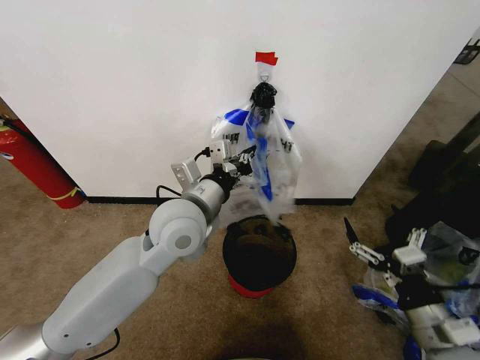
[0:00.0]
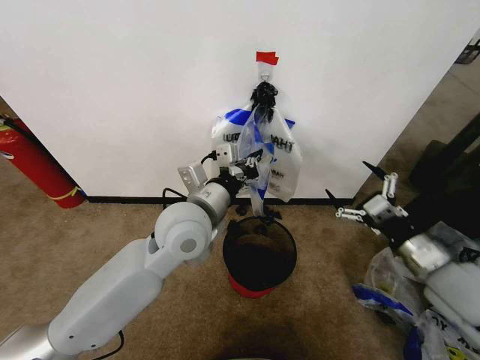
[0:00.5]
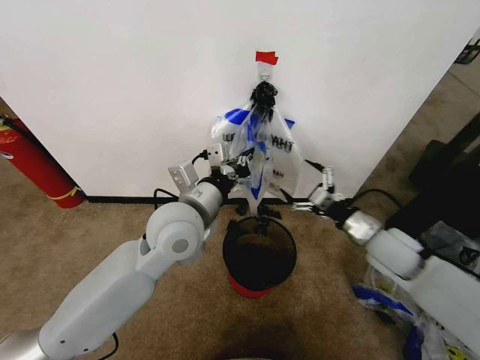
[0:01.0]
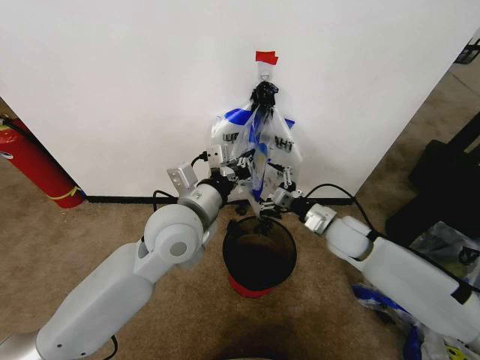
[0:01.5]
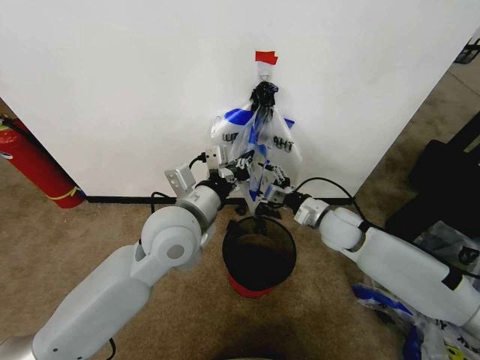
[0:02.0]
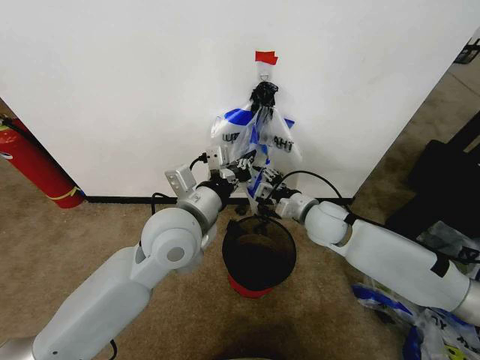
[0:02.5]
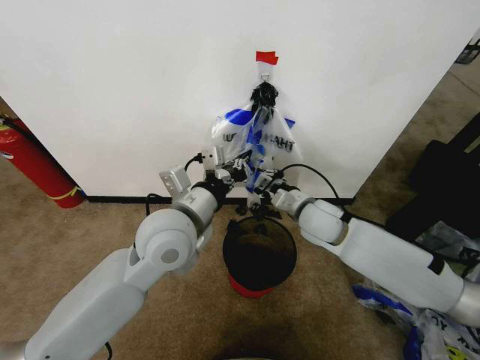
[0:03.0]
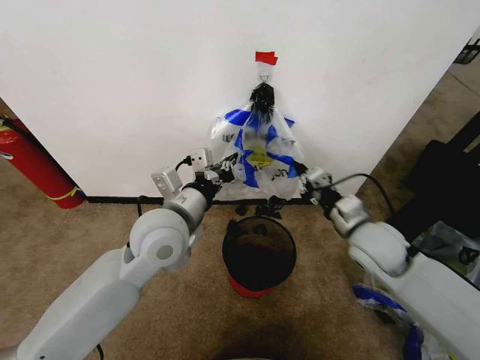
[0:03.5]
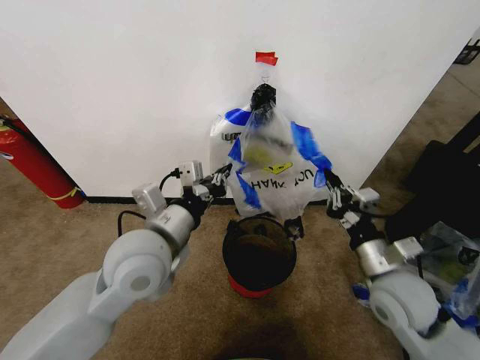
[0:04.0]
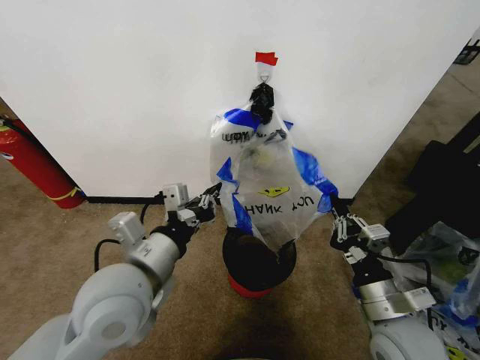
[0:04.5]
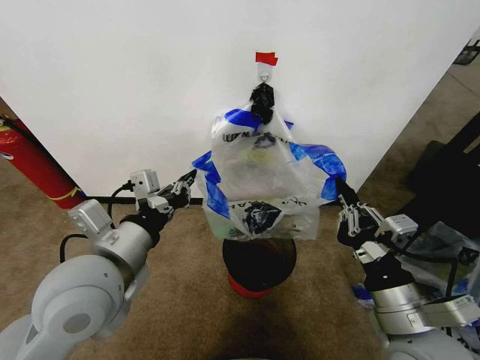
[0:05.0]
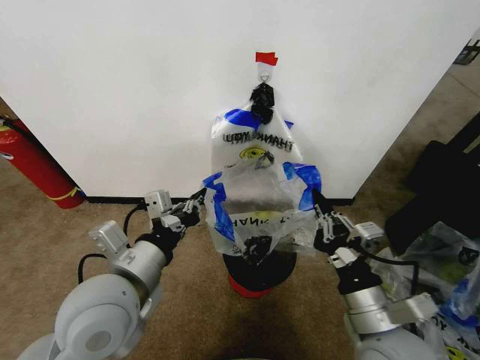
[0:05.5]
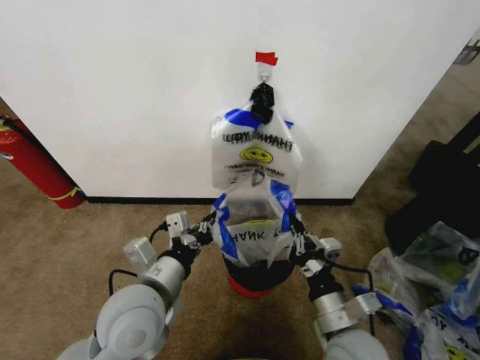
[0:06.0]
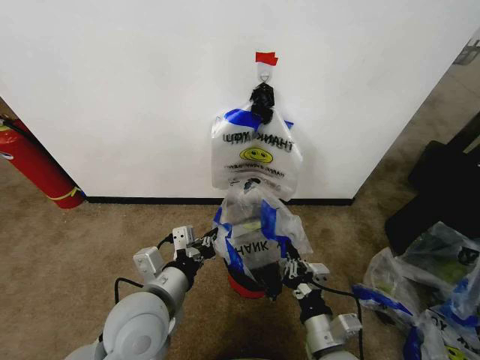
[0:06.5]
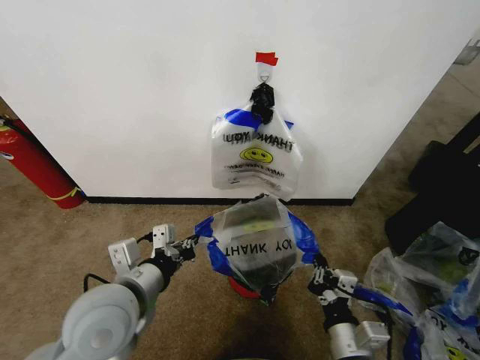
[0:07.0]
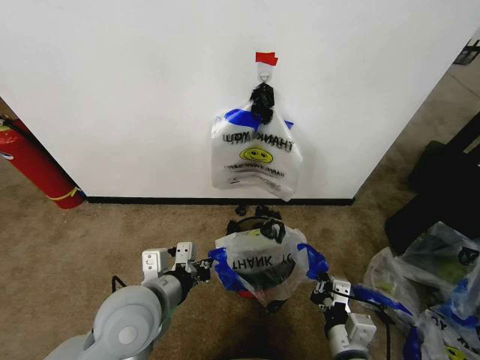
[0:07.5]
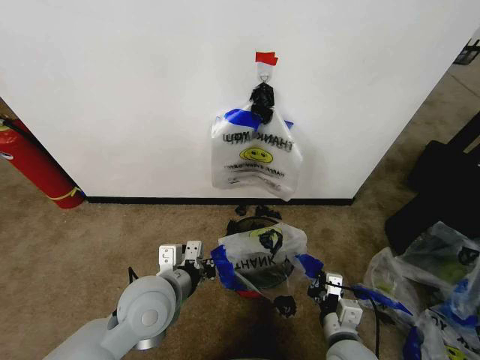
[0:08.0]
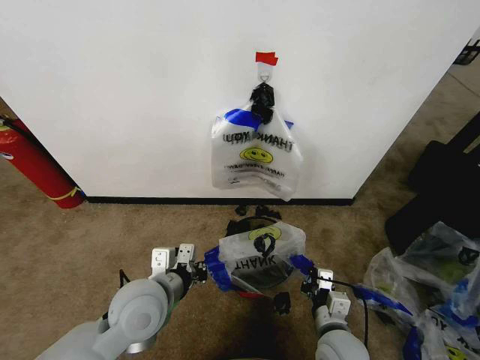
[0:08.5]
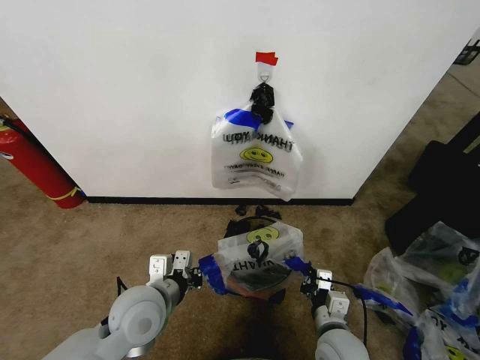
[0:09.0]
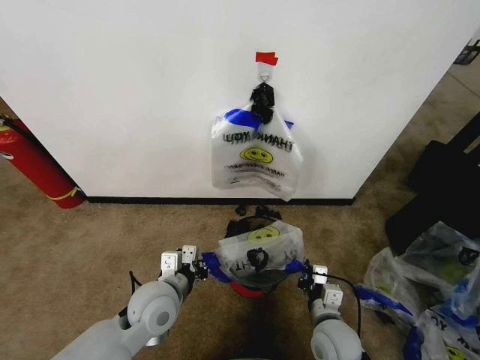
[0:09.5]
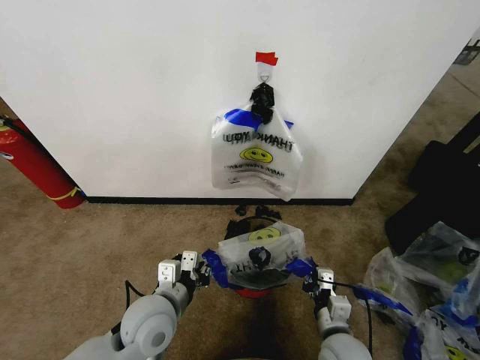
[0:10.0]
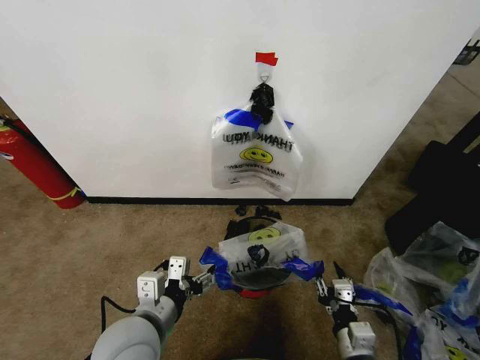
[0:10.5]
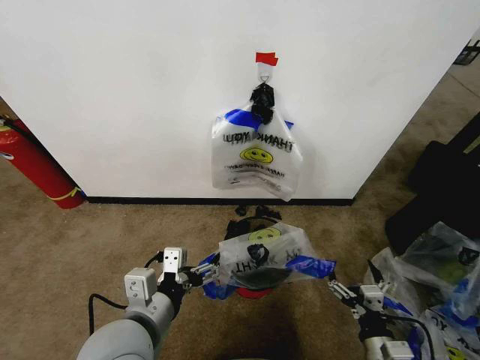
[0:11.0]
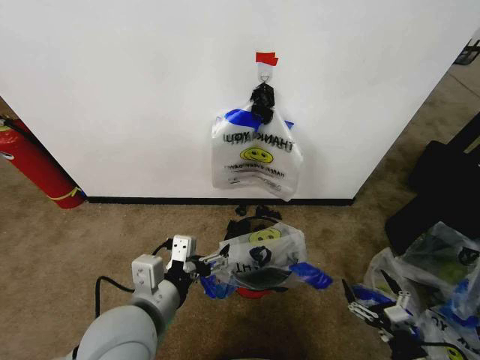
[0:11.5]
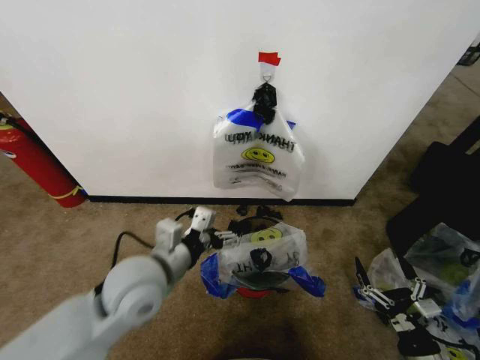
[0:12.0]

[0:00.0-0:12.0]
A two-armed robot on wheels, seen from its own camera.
Task of the whole recording: Pick up the garbage bag from the wall and place it over the trash bin.
0.0 to 2.0 s: The right gripper travels forward by some 30 cm.
2.0 to 4.0 s: The right gripper shifts roughly 15 cm backward, and closes its fingers. Meanwhile the left gripper changes place by about 5 cm.
4.0 to 6.0 s: The right gripper heads to the left, backward and downward, covering roughly 15 cm. The left gripper is displaced downward and backward by some 10 cm.
6.0 to 8.0 s: The right gripper travels downward by some 5 cm.
8.0 to 10.0 s: The left gripper goes about 5 cm downward.
10.0 to 12.0 s: The right gripper heads to the right and backward, covering roughly 20 cm, and opens its fingers, while the left gripper shifts roughly 10 cm upward, and opens its fingers.

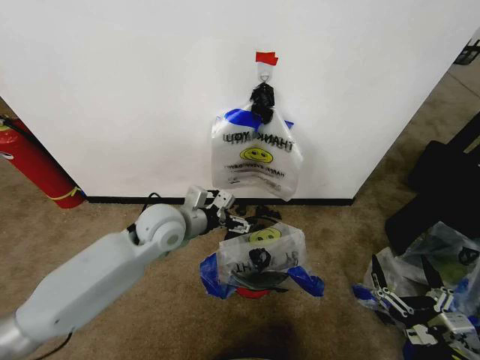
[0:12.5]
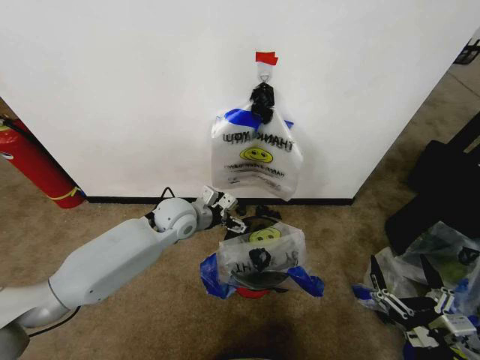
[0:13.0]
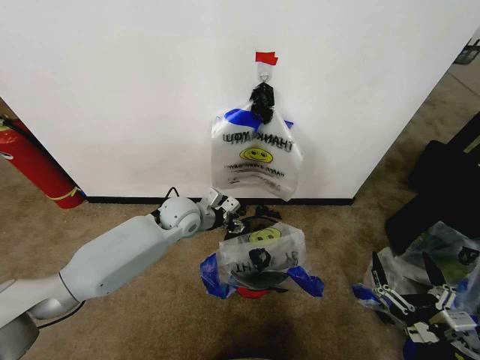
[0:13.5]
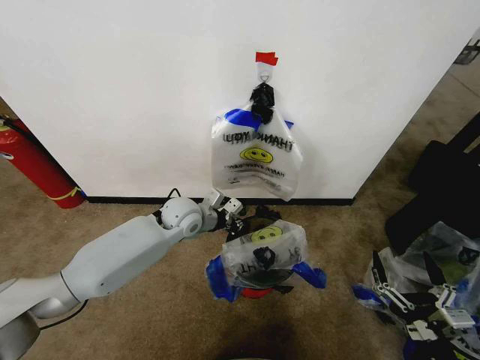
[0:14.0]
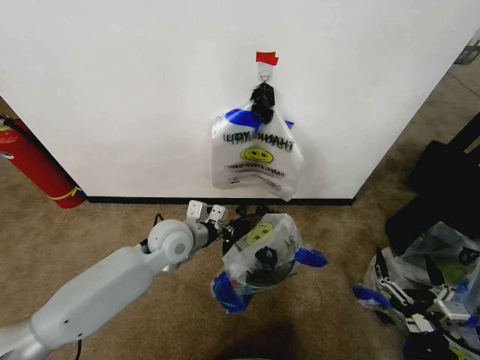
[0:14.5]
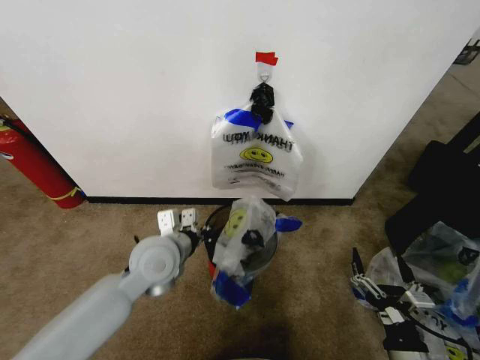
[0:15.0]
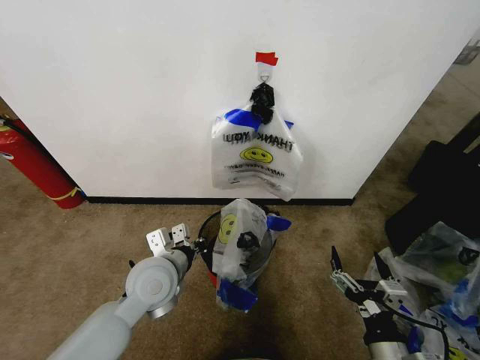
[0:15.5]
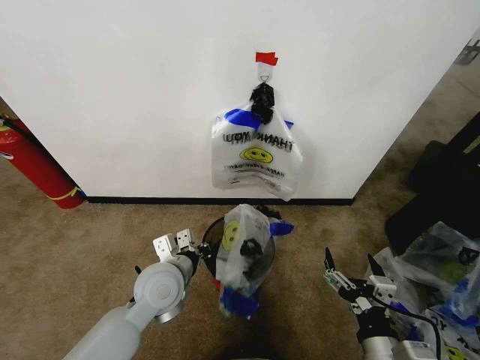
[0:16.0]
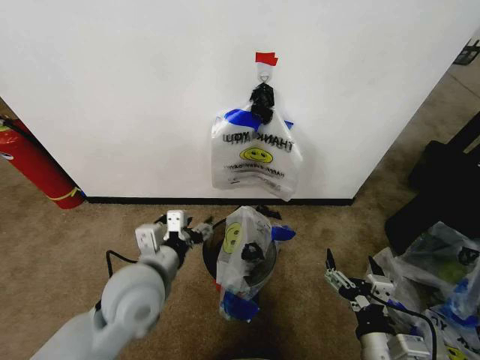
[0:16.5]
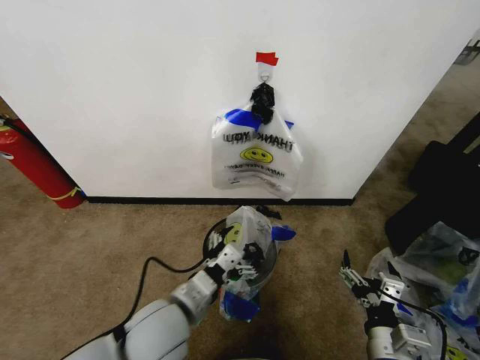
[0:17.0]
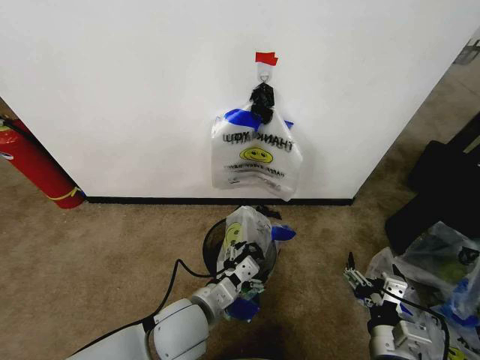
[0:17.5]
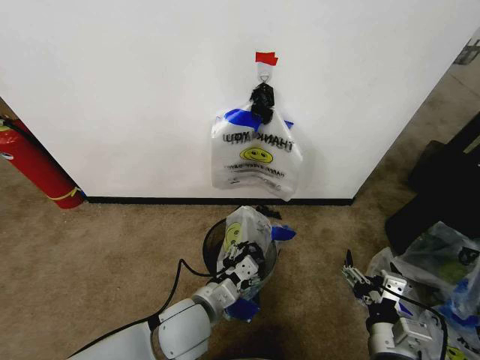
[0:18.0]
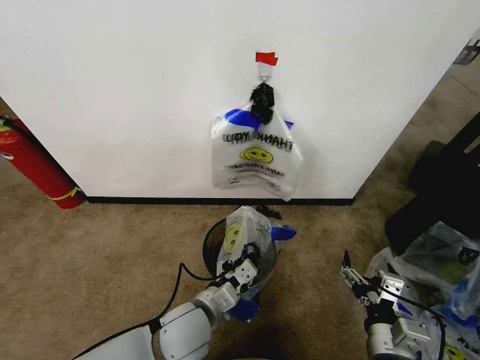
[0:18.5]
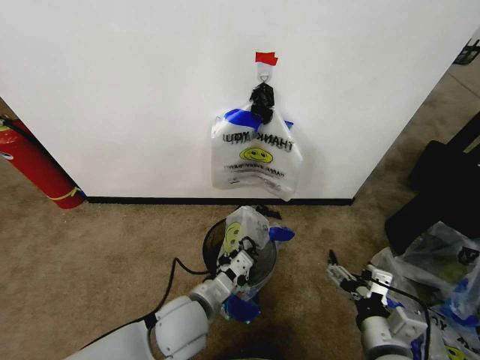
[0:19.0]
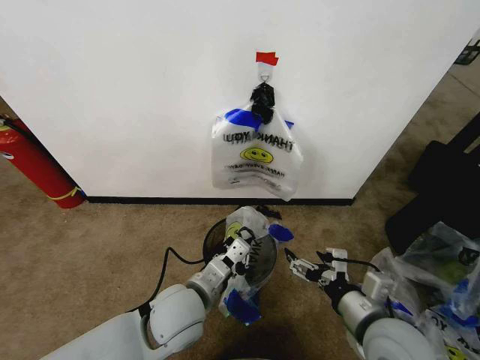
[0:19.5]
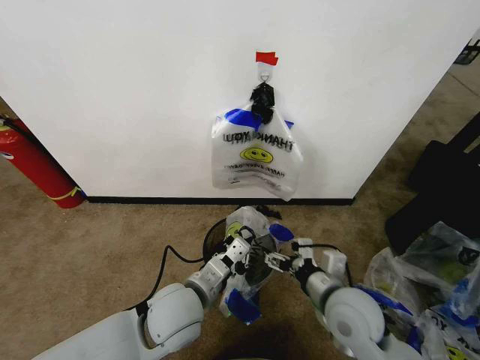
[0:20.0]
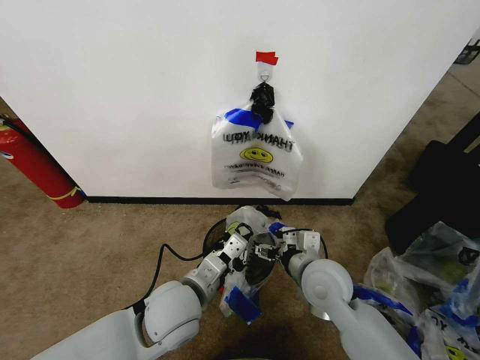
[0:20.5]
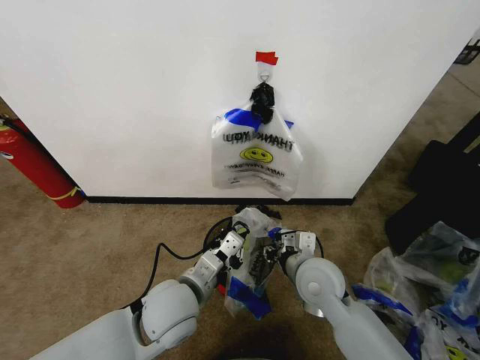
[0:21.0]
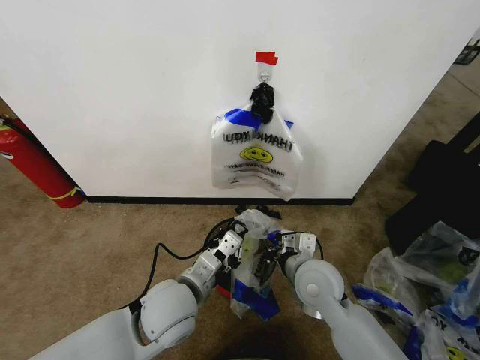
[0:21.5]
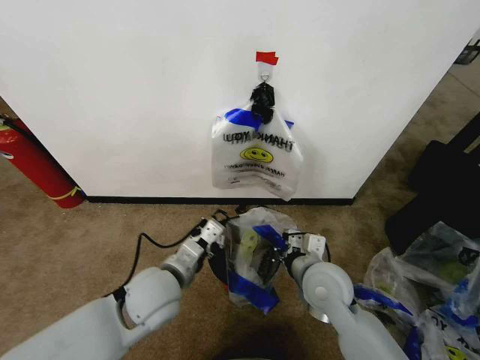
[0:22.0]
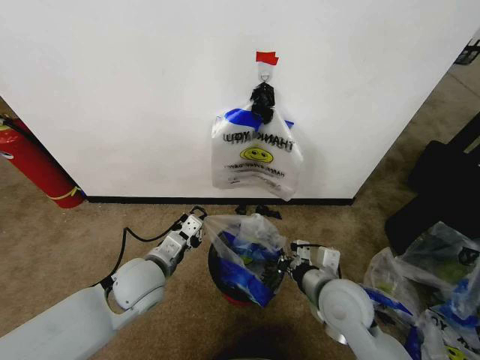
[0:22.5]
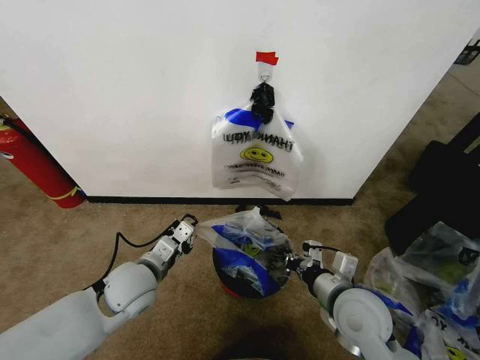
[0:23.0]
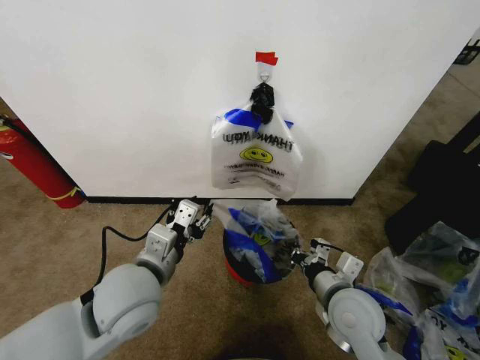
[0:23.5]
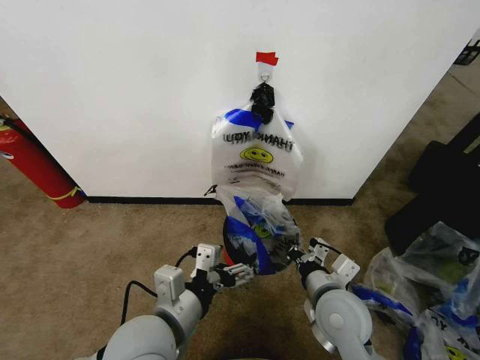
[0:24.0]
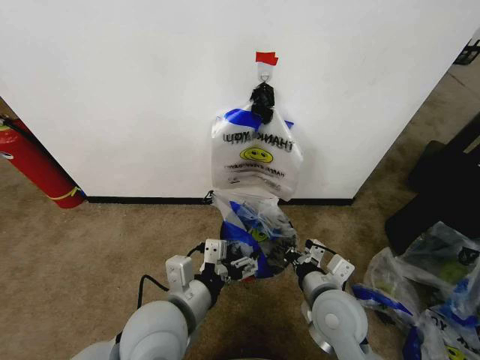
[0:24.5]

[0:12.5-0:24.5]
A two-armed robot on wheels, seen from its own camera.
Task of the whole recording: Pick up the garbage bag from the wall and place it over the trash bin.
12.5 to 14.5 s: The left gripper travels forward and back again, about 10 cm each way, and closes up.
14.5 to 16.5 s: The right gripper is displaced to the left by roughly 10 cm. The left gripper goes some 10 cm backward, and opens.
16.5 to 18.5 s: The left gripper heads downward, to the right and backward, covering approximately 15 cm, and closes its fingers.
18.5 to 20.5 s: The right gripper heads forward and to the left, covering approximately 20 cm. Meanwhile the left gripper goes roughly 5 cm upward.
20.5 to 22.5 s: The left gripper moves to the left and forward, roughly 10 cm. Meanwhile the right gripper changes place by some 5 cm, and closes up.
22.5 to 24.5 s: The left gripper travels backward, to the right and upward by approximately 15 cm, and opens its fingers.

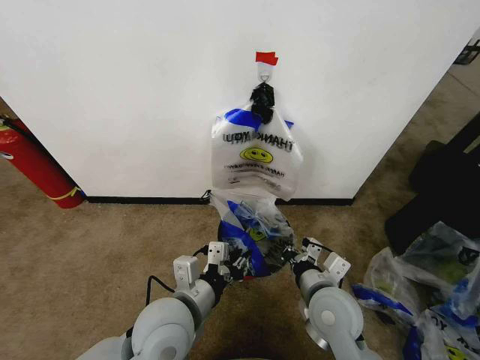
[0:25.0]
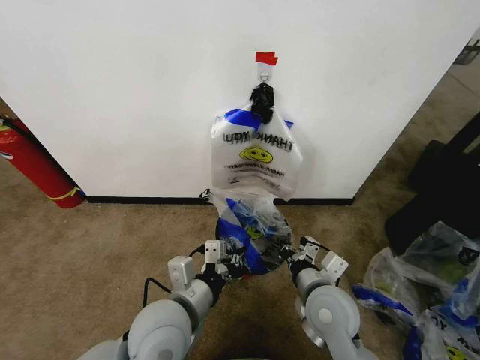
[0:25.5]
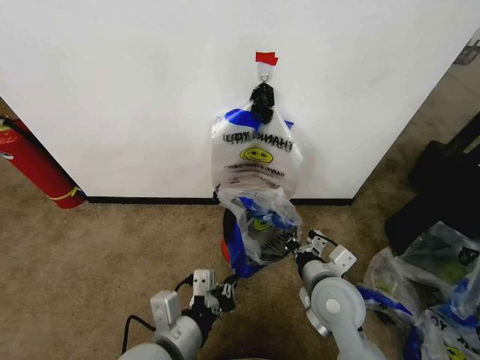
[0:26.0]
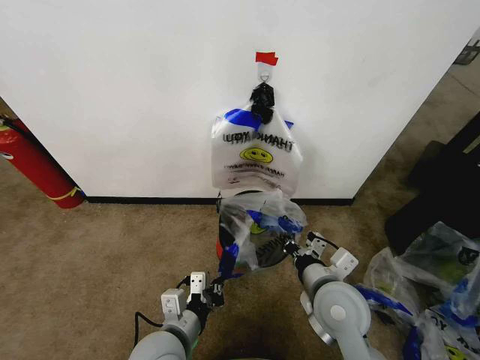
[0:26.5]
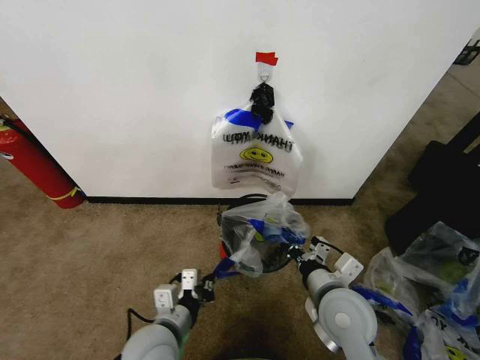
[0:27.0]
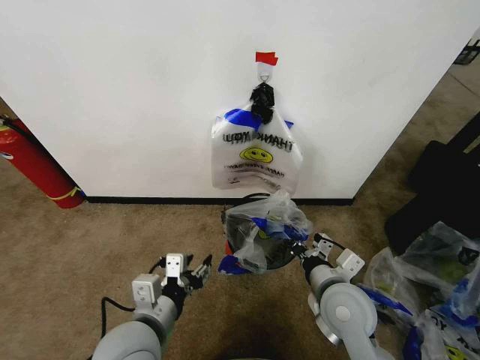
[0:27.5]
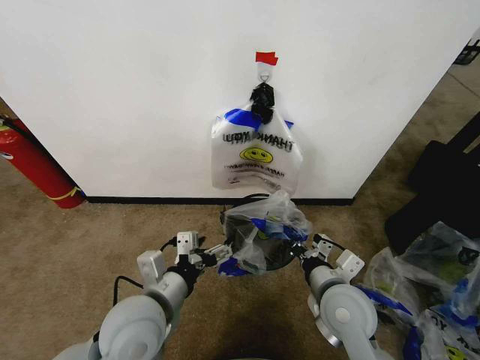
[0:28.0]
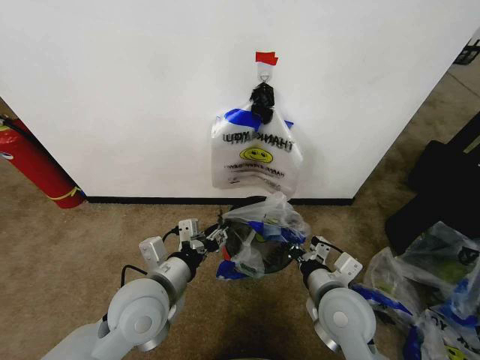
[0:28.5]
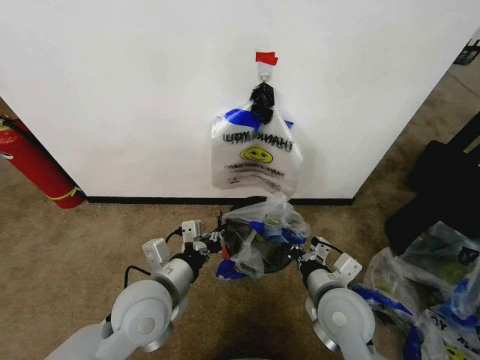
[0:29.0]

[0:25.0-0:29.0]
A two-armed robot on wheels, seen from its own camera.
Task of the whole recording: Pick up the garbage bag from the wall and place it over the trash bin.
25.0 to 27.0 s: The left gripper heads downward, covering about 10 cm.
27.0 to 29.0 s: The left gripper moves upward, roughly 10 cm, and opens and closes again.
